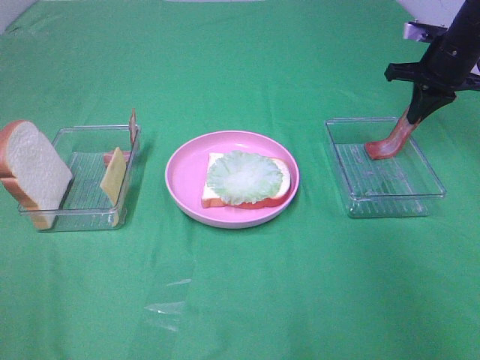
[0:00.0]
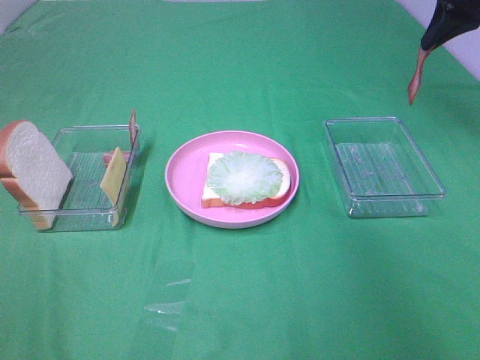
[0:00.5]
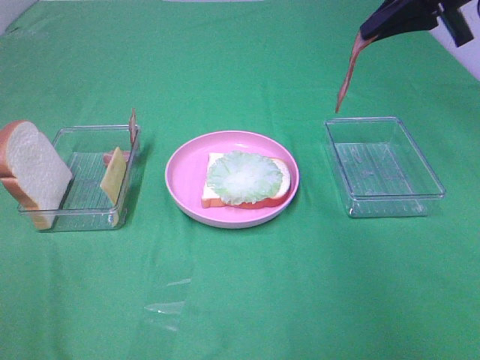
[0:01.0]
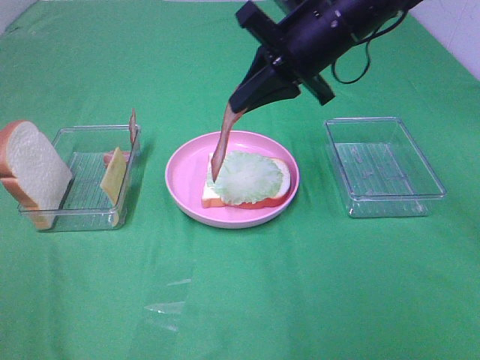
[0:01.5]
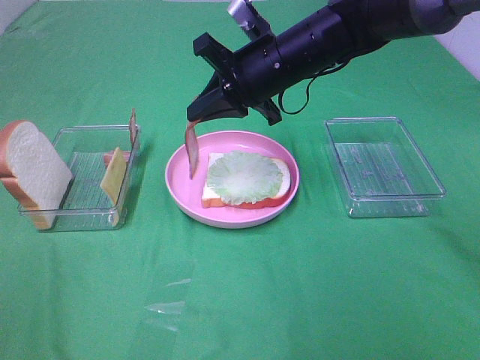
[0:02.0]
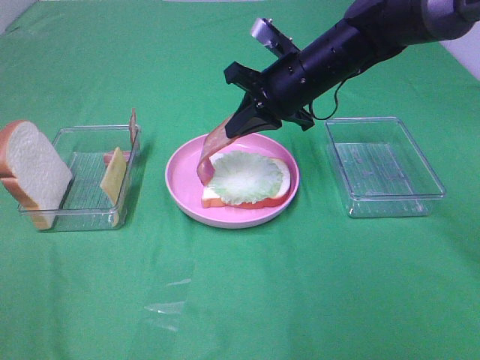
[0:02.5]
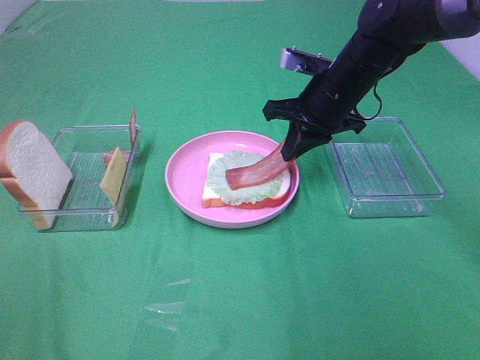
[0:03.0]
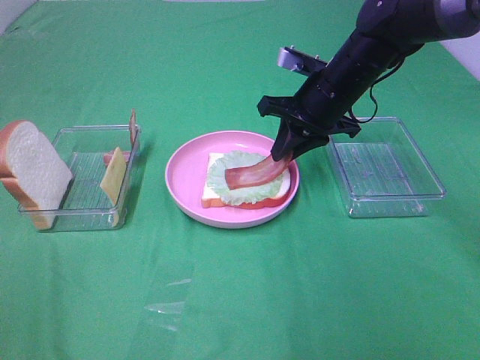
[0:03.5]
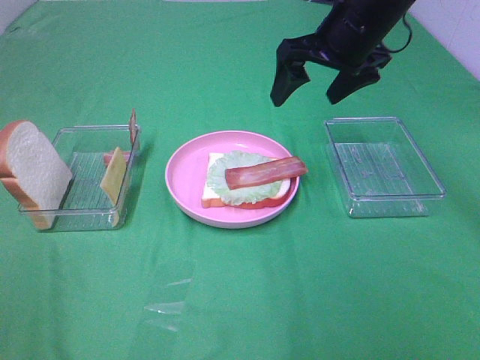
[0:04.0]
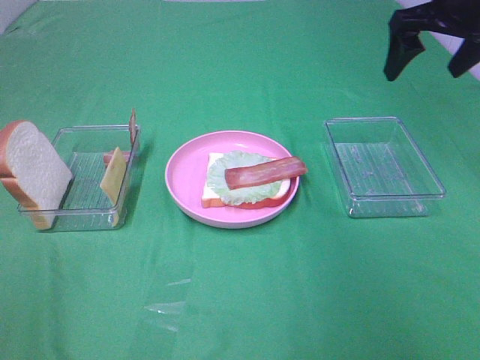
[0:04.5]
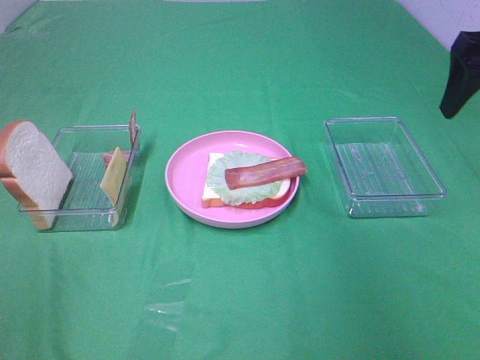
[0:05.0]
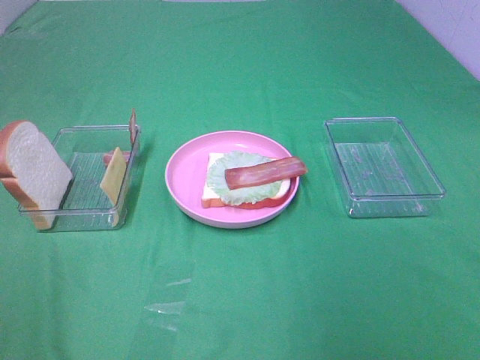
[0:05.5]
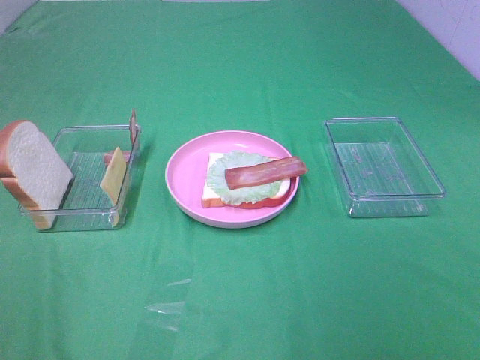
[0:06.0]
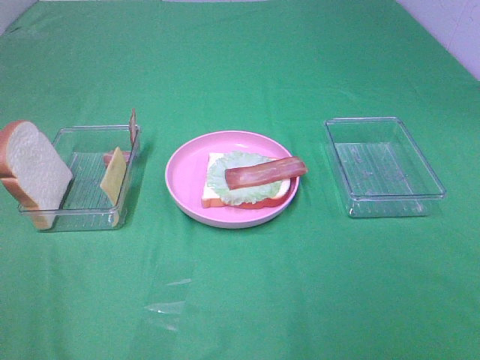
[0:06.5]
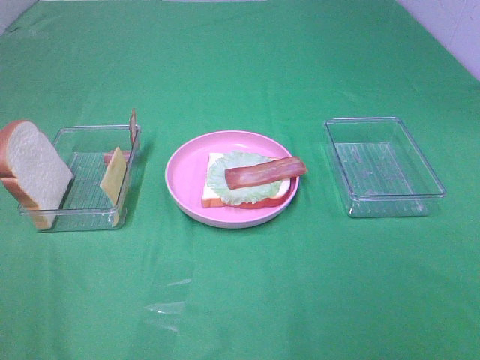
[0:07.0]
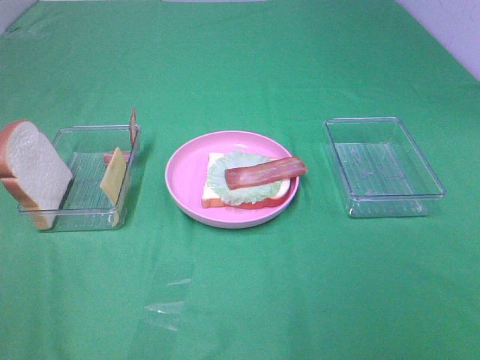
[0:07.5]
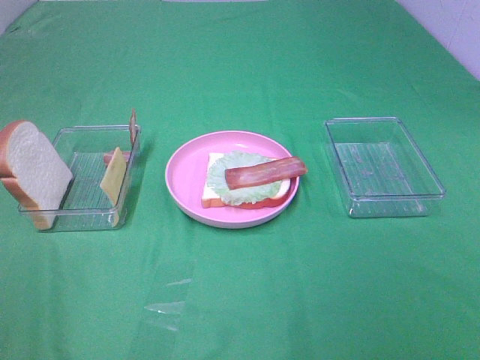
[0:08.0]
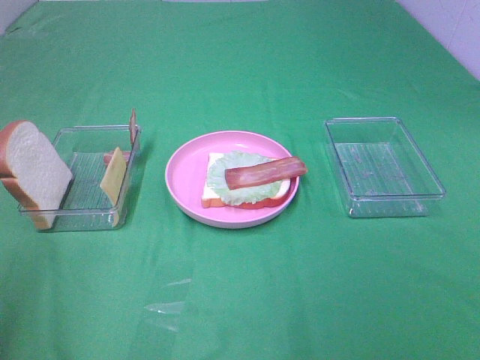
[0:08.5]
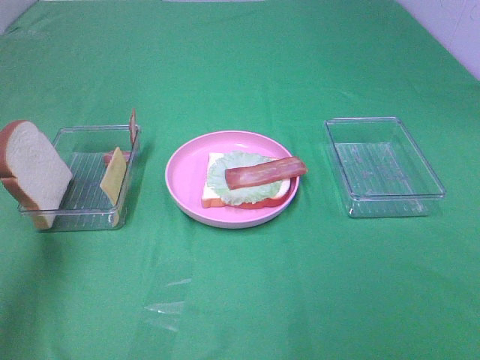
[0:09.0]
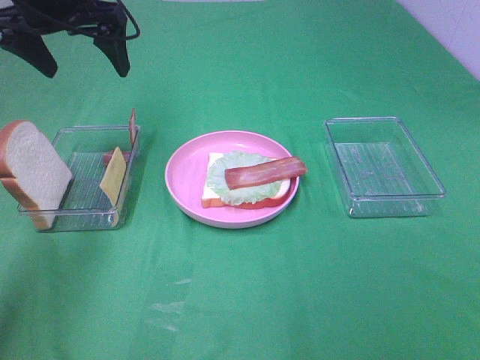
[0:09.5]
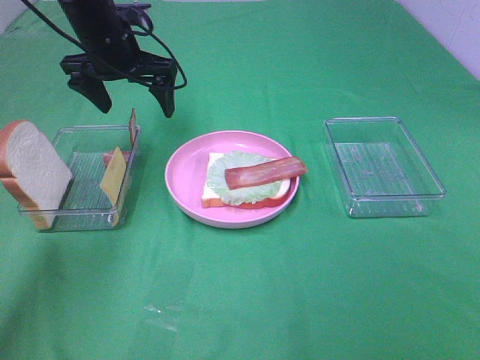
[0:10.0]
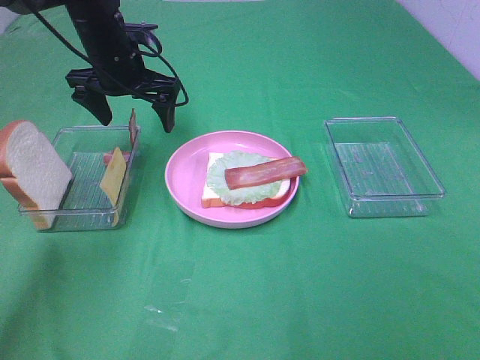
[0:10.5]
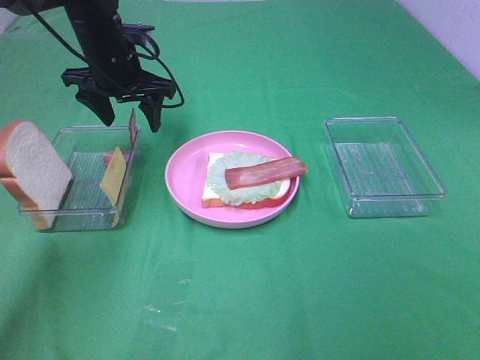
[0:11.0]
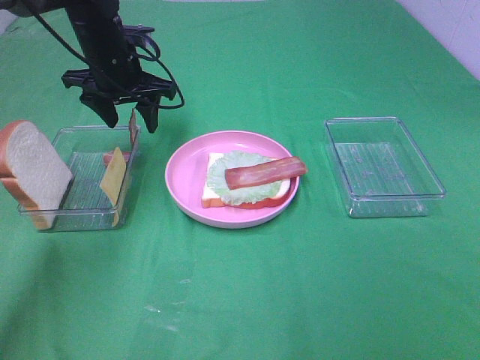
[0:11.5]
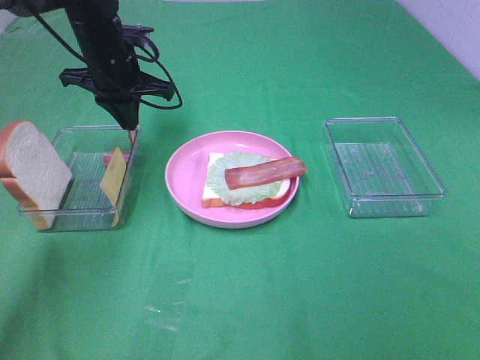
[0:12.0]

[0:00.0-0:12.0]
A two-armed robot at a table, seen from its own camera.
Task of the whole recording: Make sandwiches.
Step, 0:00.0 to 0:03.5: Right hand:place bacon on lettuce slice.
0:00.0 to 0:02.0: The right gripper travels to the left by some 25 cm.
0:02.0 to 0:04.0: The right gripper shifts approximately 10 cm to the right and upward, and opens its fingers.
0:04.0 to 0:06.0: The right gripper is displaced backward by roughly 40 cm.
0:08.0 to 0:10.0: The left gripper is displaced forward by some 50 cm.
0:10.0 to 0:12.0: The left gripper closes up.

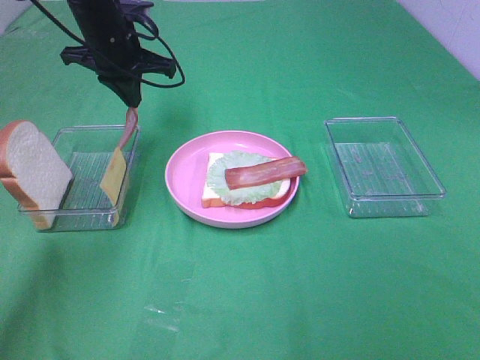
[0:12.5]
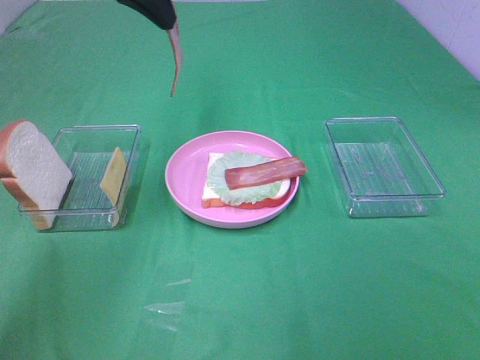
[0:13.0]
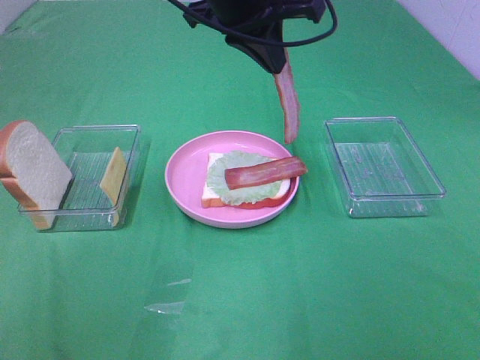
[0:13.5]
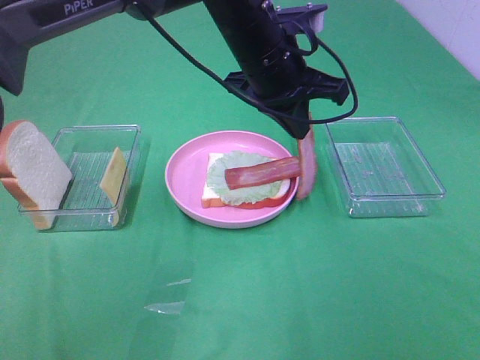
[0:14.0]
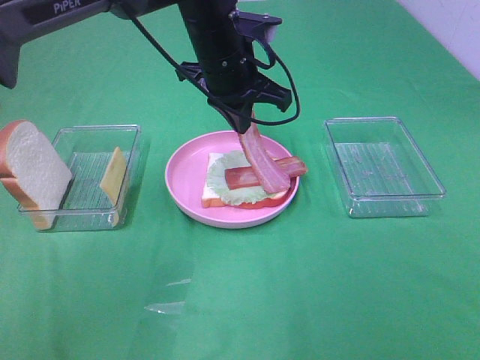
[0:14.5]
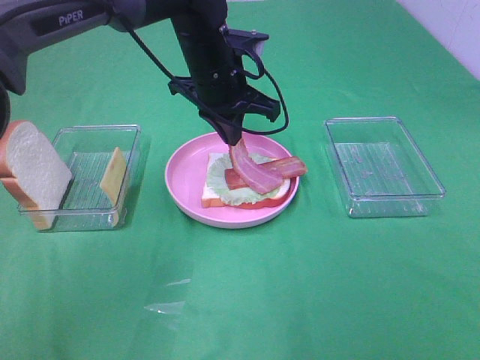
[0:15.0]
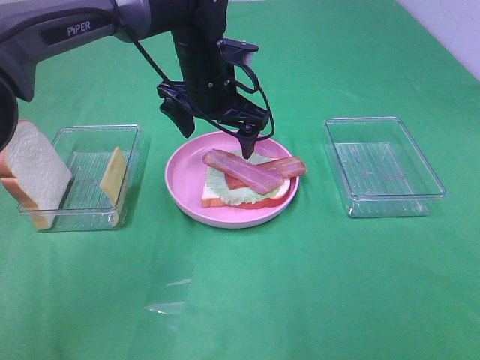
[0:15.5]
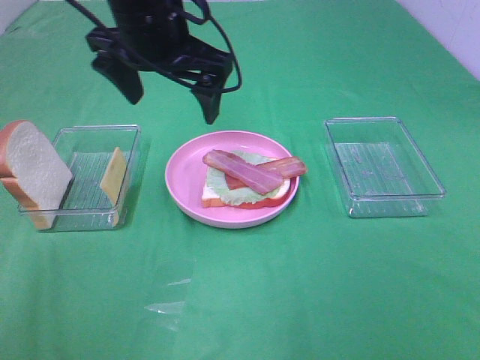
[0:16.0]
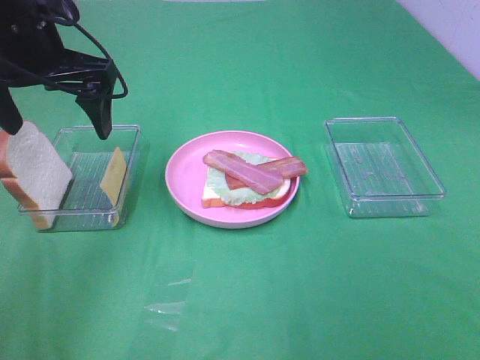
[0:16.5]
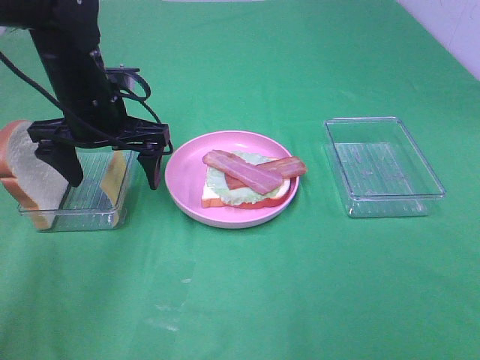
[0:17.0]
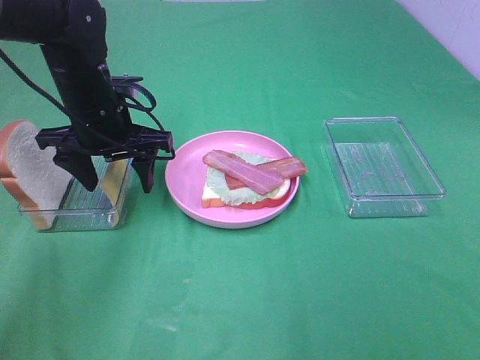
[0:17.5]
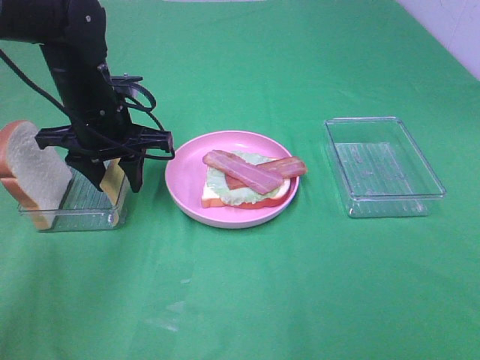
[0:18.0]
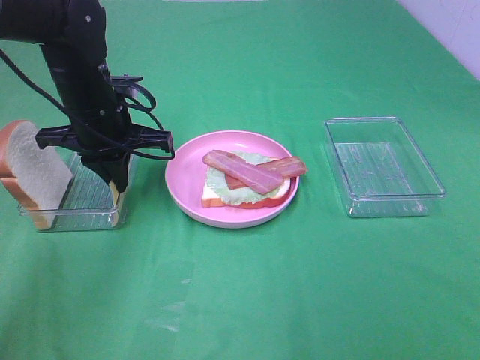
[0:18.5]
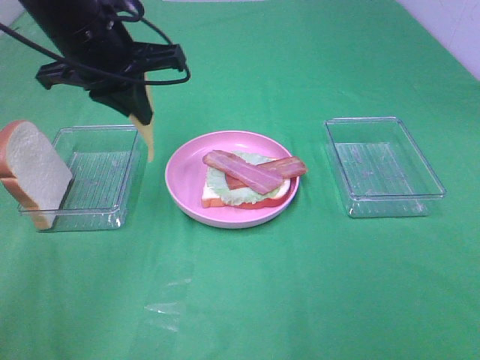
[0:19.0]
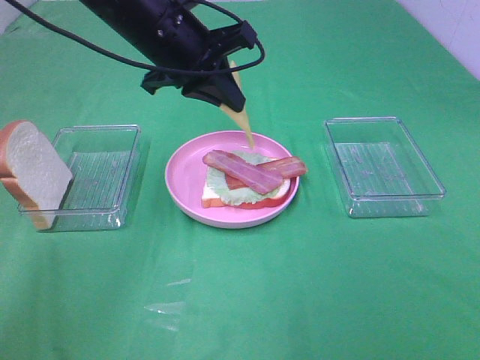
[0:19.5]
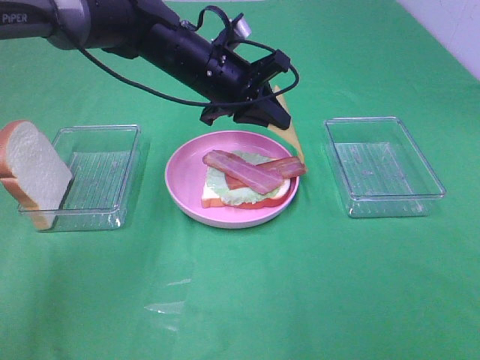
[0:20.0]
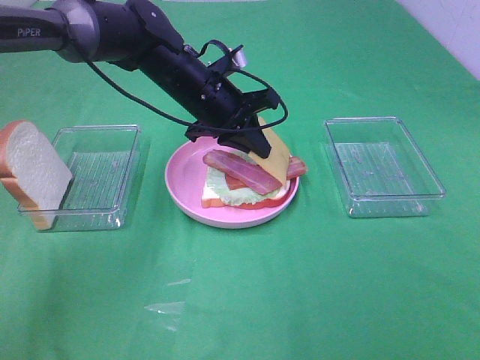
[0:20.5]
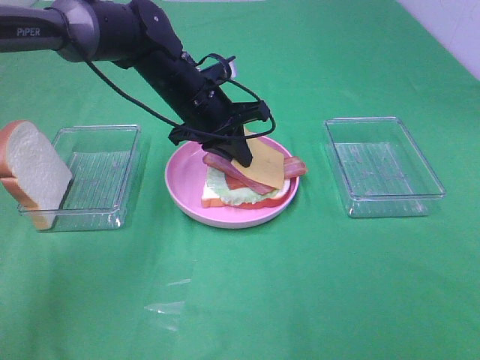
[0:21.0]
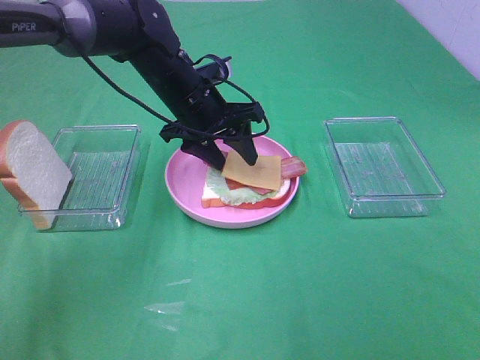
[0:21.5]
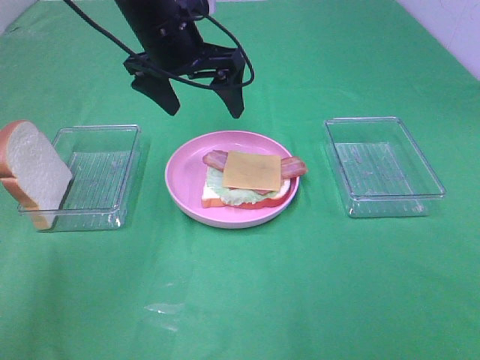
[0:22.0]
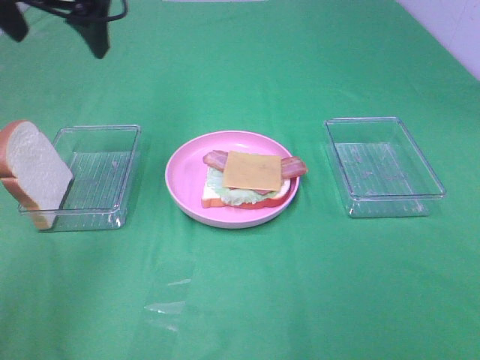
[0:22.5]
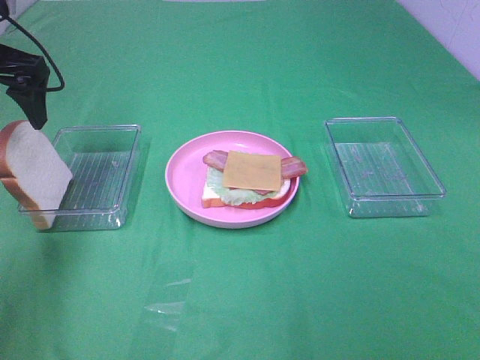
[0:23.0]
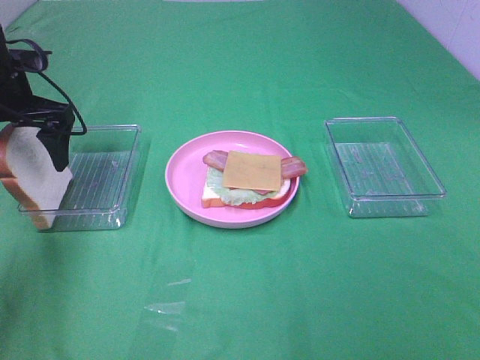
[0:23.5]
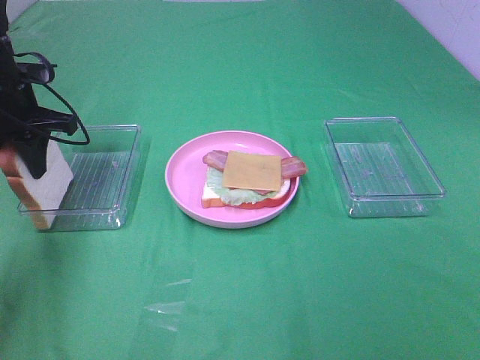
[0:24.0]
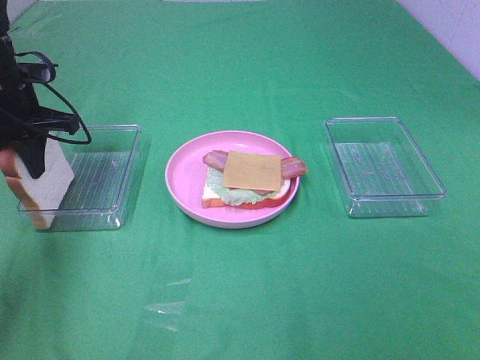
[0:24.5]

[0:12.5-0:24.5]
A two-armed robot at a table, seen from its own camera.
Task of the whole recording: Make sandwiches.
Step, 0:12.5 to 0:15.0: Left hand:place bacon on bacon.
Step, 0:15.5 to 0:18.5: Left hand:grab the cheese slice.
Step, 0:19.0 to 0:21.5: Left hand:place the cheese slice on top of the bacon.
0:12.5 to 0:14.5: The left gripper moves to the right and backward, roughly 15 cm.
0:14.5 to 0:16.5: The left gripper shifts some 20 cm to the left, and opens.
0:16.5 to 0:18.5: The left gripper moves downward, approximately 10 cm, and closes up.
0:18.5 to 0:20.5: The left gripper is displaced to the right by about 10 cm.
0:20.5 to 0:22.5: The left gripper is displaced upward and to the left by roughly 25 cm, and opens up.
0:22.5 to 0:24.5: The left gripper is displaced downward and to the left by roughly 15 cm, and closes its fingers.

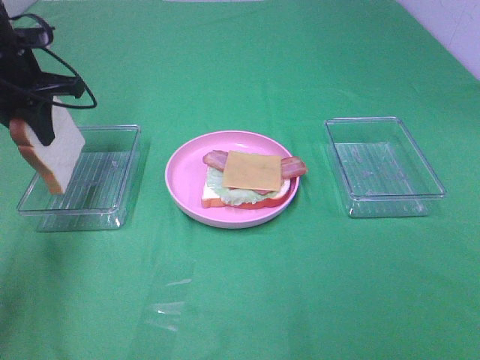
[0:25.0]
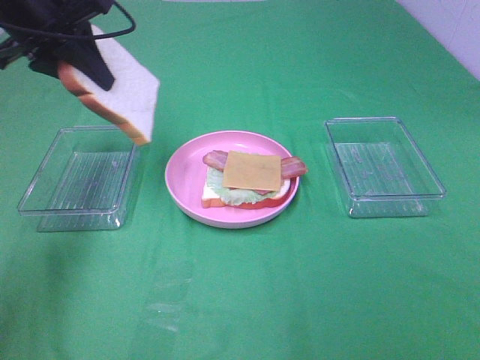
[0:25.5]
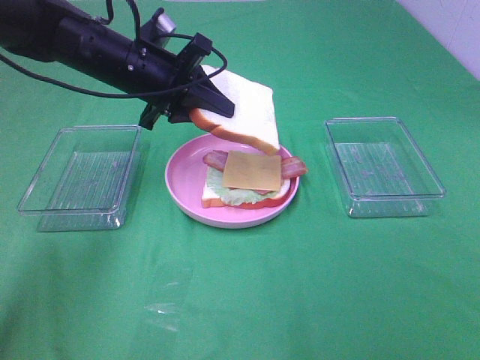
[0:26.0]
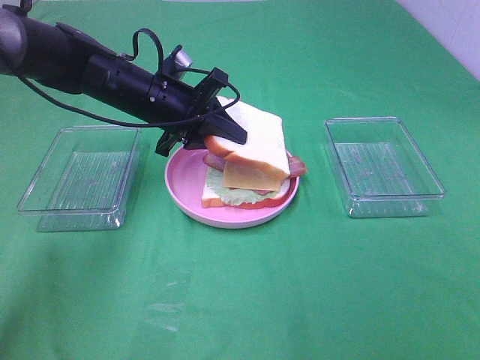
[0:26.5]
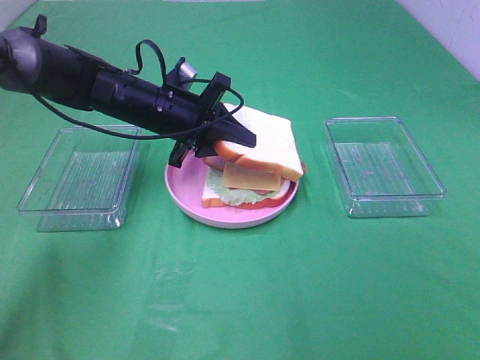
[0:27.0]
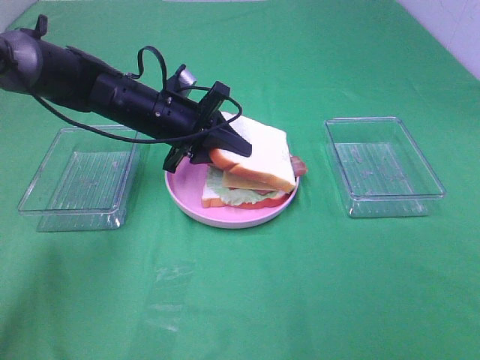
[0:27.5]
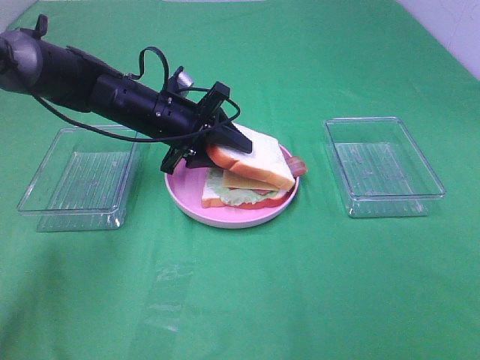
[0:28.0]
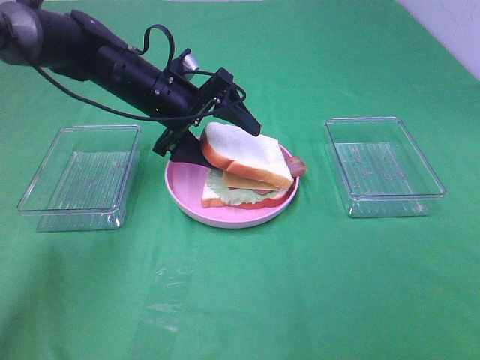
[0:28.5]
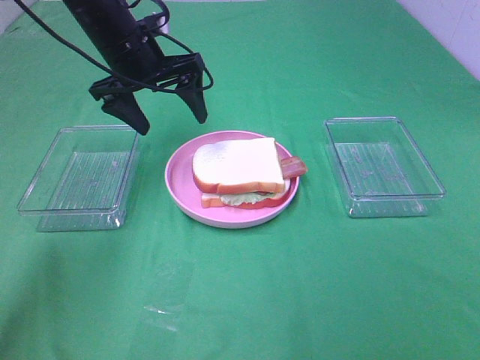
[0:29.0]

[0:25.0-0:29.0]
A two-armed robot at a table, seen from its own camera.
Task of the whole recording: Make sandwiches.
Step, 0:25.0 to 0:28.5: Left hand:place the bread slice on the cheese slice.
0:25.0 to 0:27.0: The left gripper goes some 20 cm to the right and downward.
0:27.0 to 0:29.0: The left gripper heads upward, covering roughly 10 cm, and opens up.
